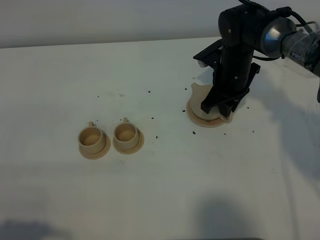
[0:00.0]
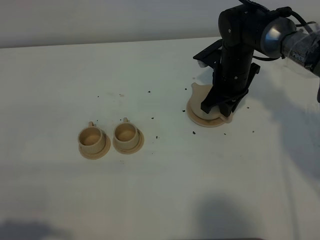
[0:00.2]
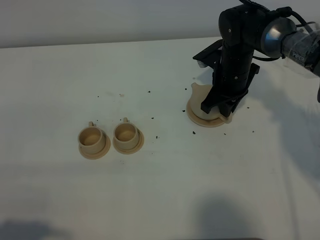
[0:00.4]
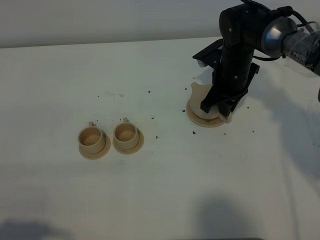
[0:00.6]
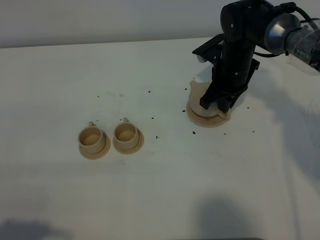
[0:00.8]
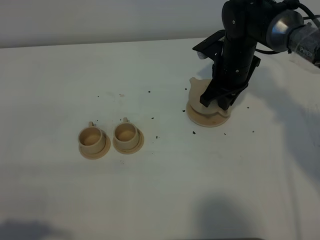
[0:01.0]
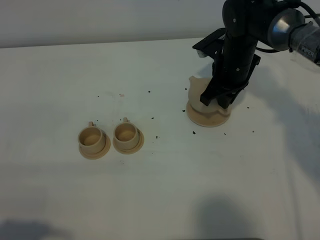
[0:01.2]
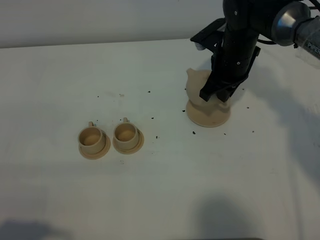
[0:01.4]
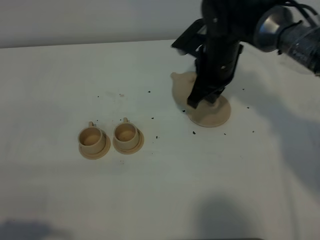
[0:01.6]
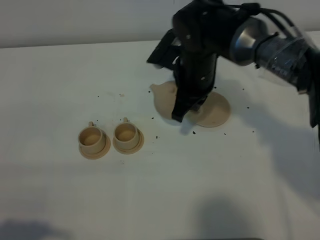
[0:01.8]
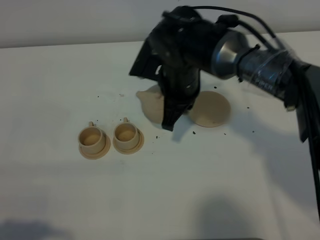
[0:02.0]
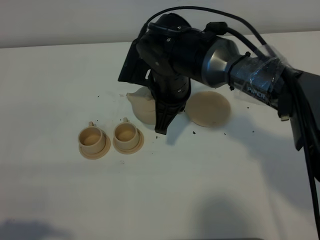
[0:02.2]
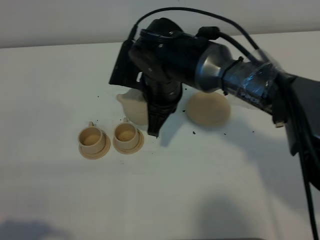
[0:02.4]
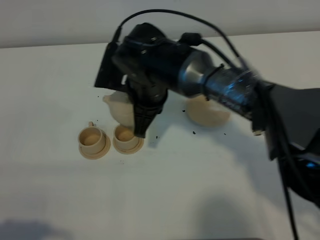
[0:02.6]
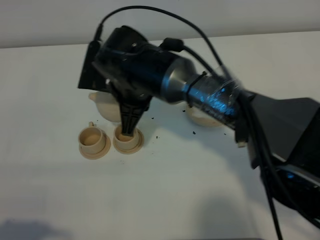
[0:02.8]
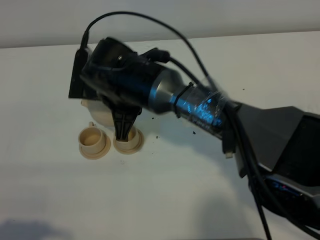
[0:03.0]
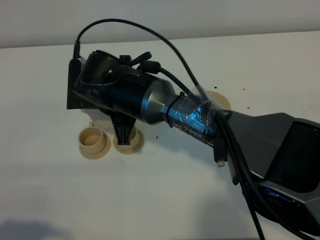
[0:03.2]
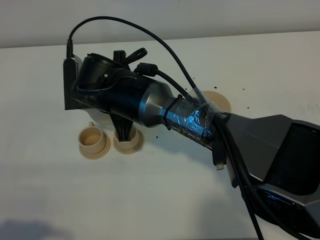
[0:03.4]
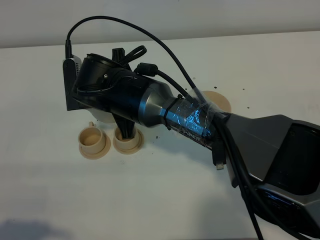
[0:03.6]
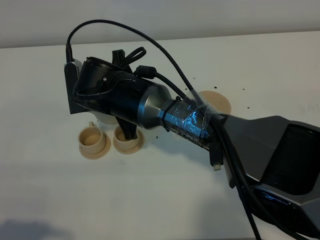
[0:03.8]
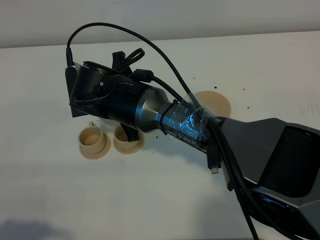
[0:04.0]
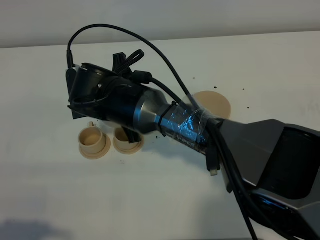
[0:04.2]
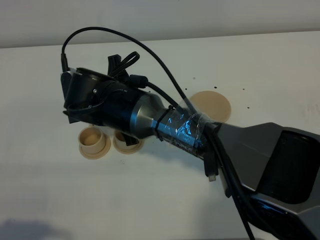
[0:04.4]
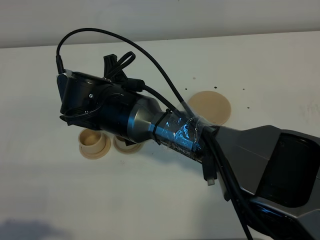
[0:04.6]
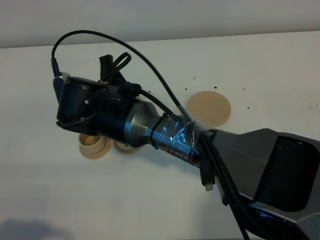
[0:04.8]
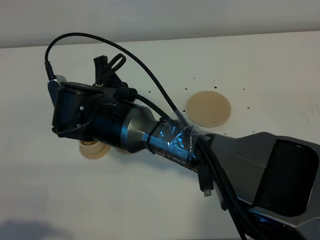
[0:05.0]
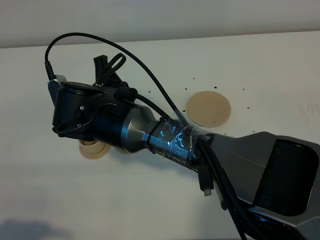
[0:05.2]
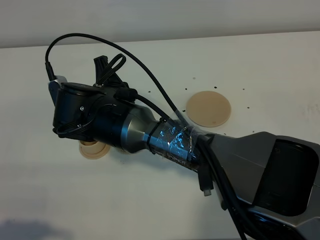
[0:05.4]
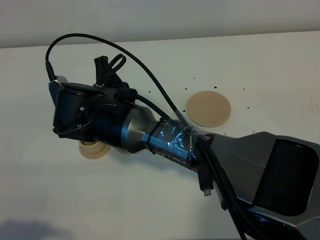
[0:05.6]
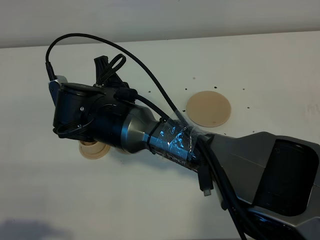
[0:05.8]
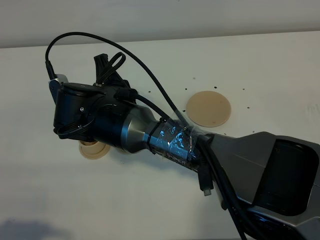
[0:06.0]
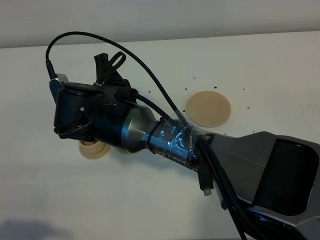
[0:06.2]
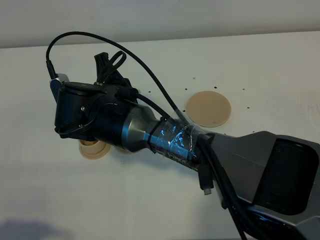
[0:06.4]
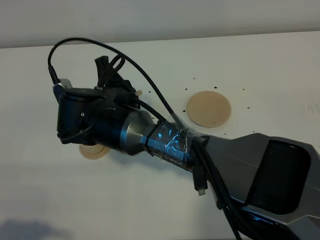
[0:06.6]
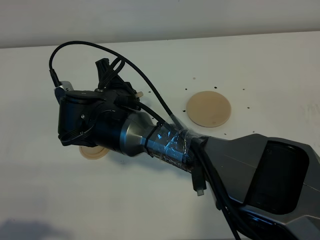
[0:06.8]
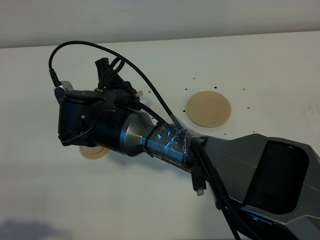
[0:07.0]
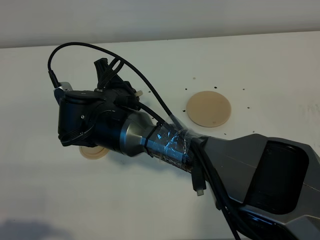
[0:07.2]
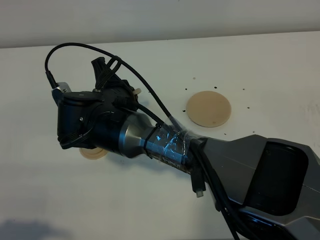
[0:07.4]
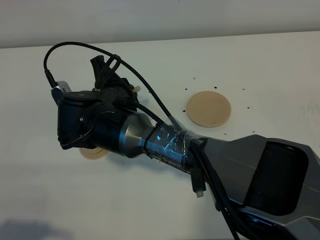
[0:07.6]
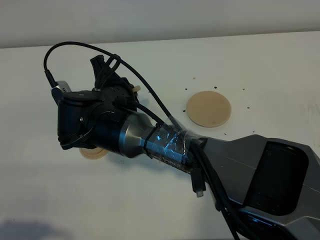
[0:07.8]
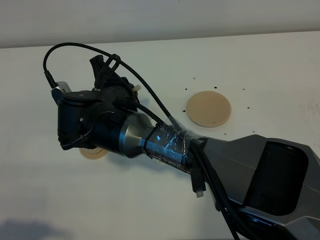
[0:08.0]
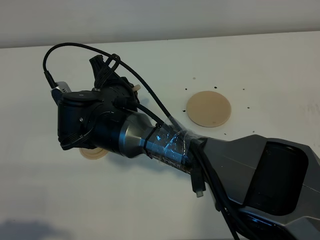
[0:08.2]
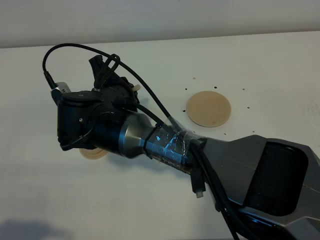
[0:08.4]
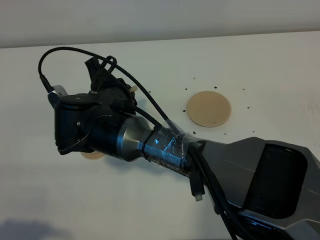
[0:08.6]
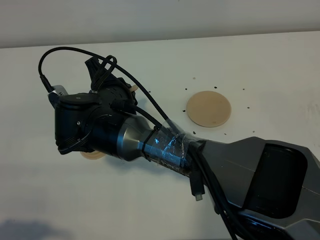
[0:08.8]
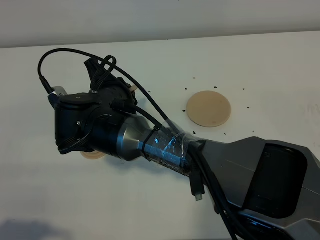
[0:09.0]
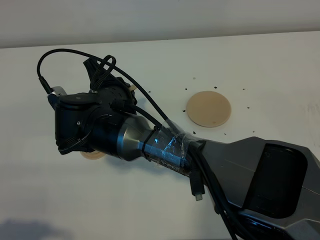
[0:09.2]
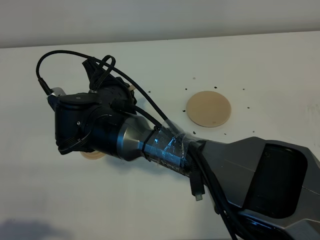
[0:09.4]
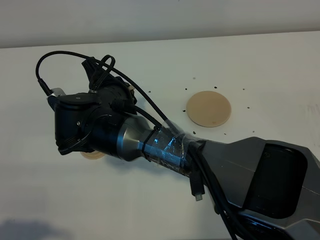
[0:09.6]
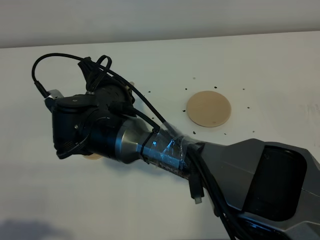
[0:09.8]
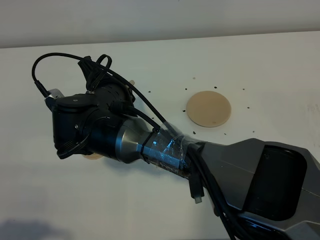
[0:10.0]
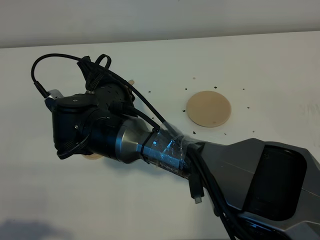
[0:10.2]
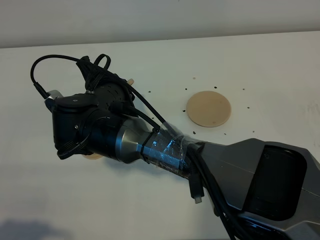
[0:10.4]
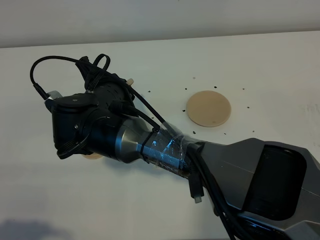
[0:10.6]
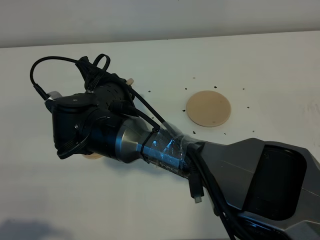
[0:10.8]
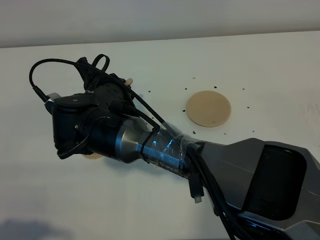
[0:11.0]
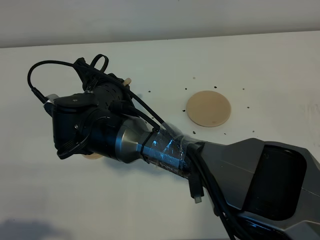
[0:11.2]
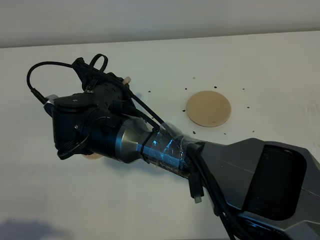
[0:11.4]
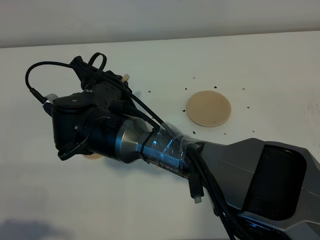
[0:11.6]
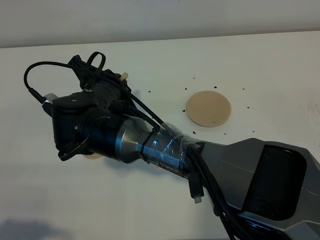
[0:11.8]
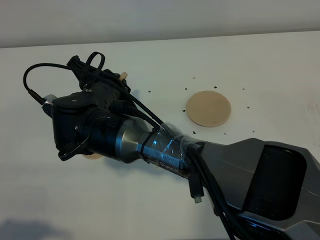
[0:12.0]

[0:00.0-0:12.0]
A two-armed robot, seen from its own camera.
Task of the whole recording: grasp the brown teapot and pour the tea into the two brown teacups one by one, put the brown teapot back in its original place.
0:00.0 to 0:01.6: The right gripper heads upward and to the left, covering some 10 cm.
0:01.6 to 0:03.0: The right gripper heads to the left, covering roughly 15 cm.
0:04.4 to 0:07.6: There are only small adjustments of the grippers.
0:07.6 to 0:10.4: The grippers stay close to where they were, moving slightly.
0:10.4 to 0:12.0: There are only small adjustments of the grippers.

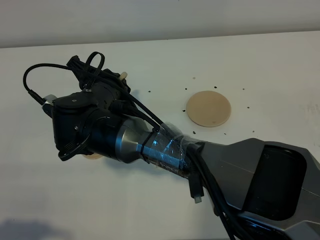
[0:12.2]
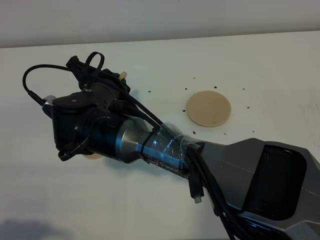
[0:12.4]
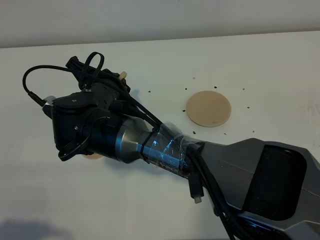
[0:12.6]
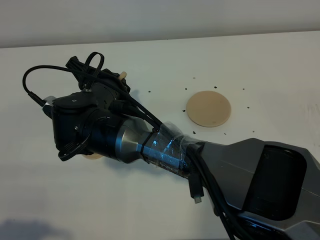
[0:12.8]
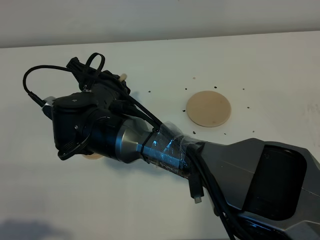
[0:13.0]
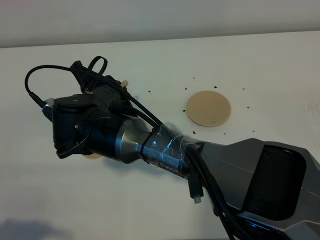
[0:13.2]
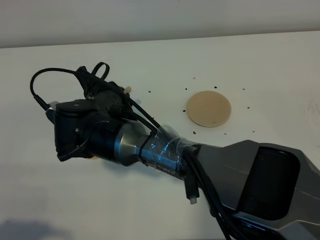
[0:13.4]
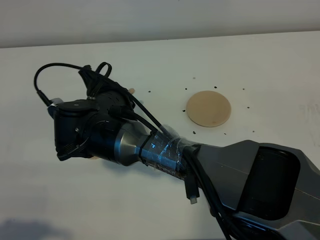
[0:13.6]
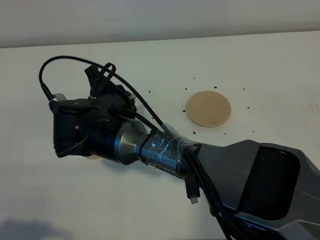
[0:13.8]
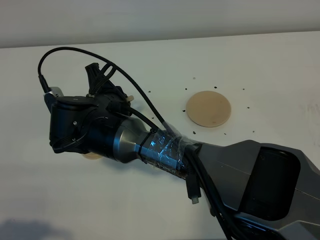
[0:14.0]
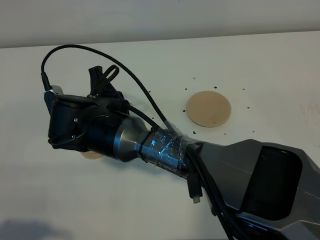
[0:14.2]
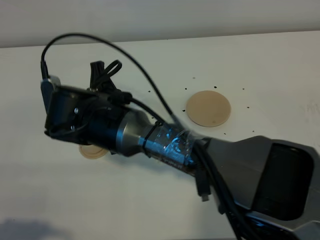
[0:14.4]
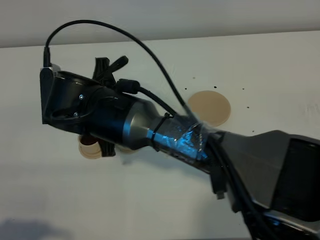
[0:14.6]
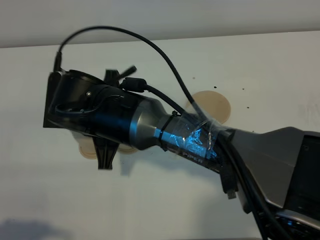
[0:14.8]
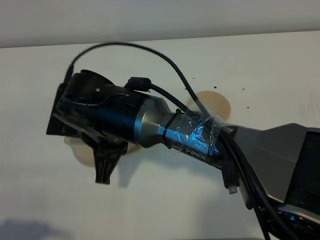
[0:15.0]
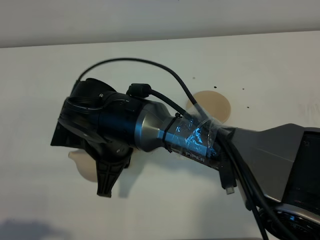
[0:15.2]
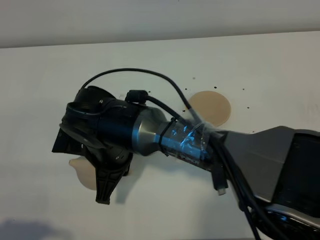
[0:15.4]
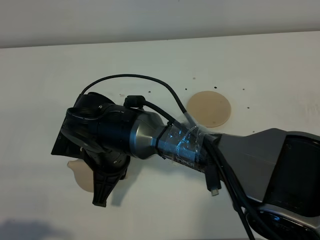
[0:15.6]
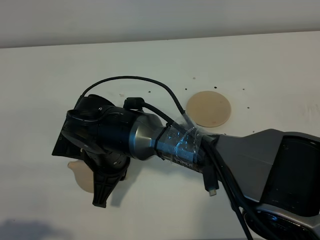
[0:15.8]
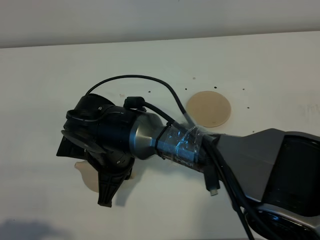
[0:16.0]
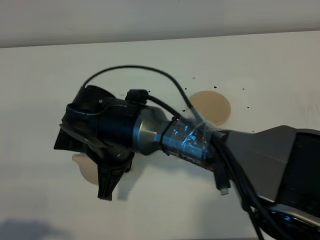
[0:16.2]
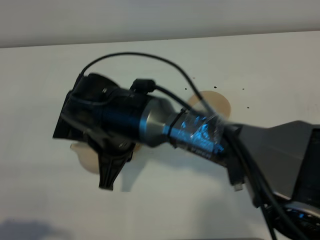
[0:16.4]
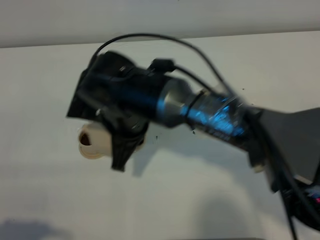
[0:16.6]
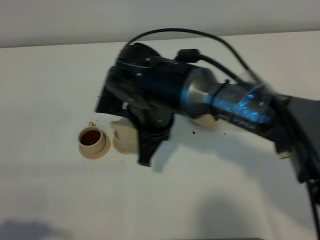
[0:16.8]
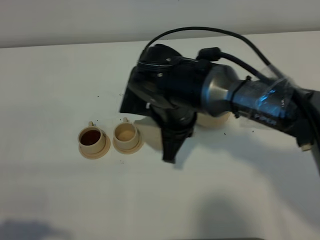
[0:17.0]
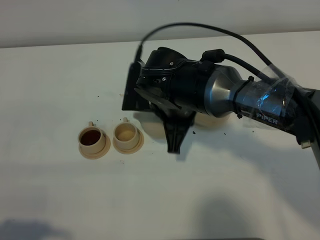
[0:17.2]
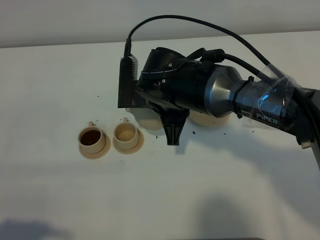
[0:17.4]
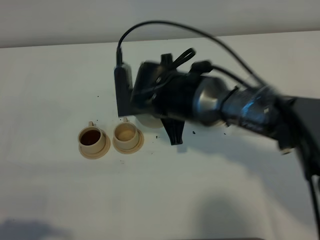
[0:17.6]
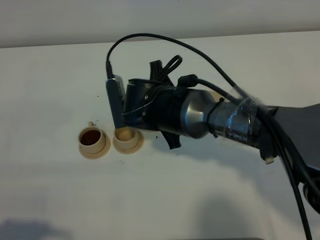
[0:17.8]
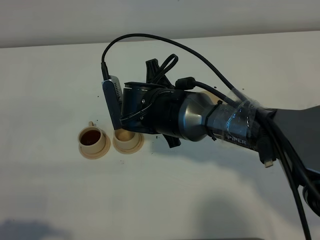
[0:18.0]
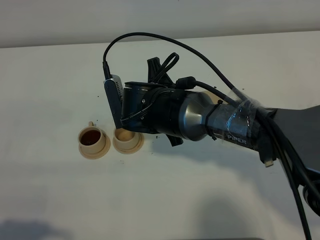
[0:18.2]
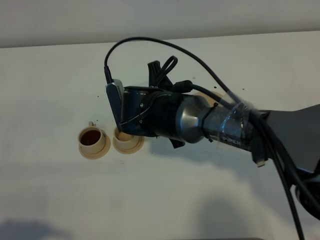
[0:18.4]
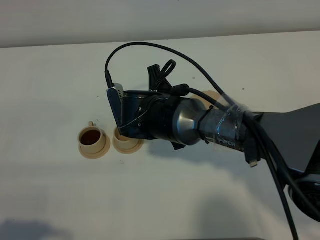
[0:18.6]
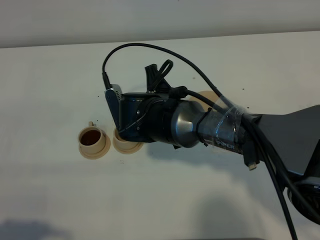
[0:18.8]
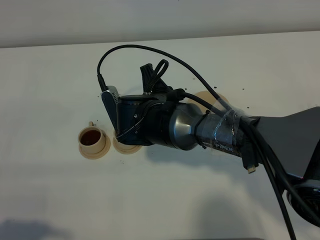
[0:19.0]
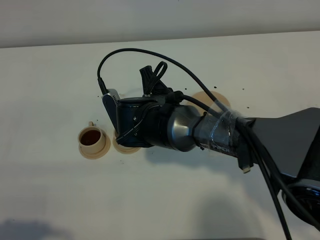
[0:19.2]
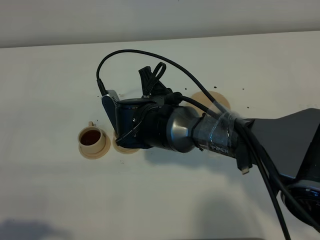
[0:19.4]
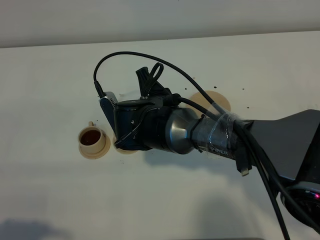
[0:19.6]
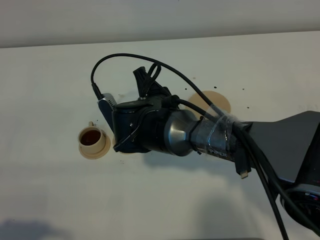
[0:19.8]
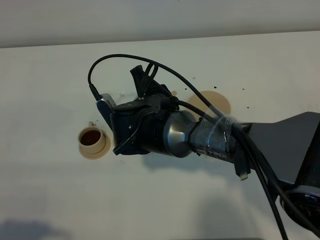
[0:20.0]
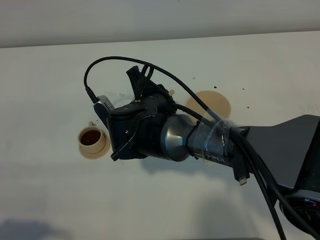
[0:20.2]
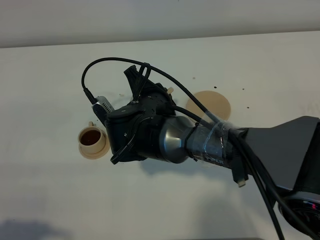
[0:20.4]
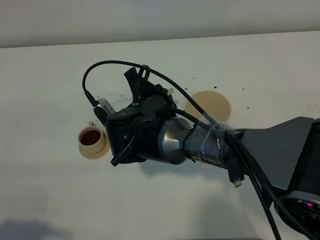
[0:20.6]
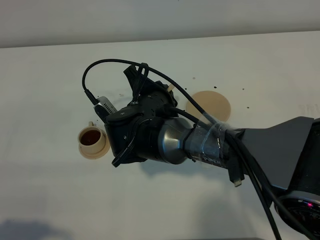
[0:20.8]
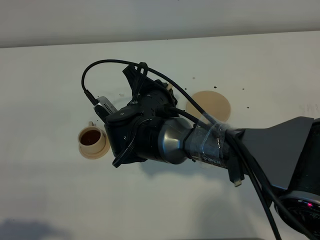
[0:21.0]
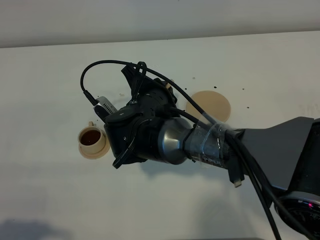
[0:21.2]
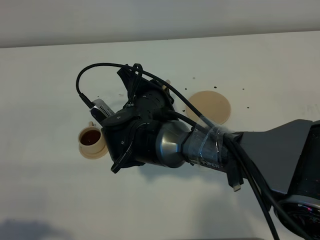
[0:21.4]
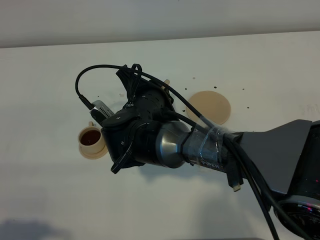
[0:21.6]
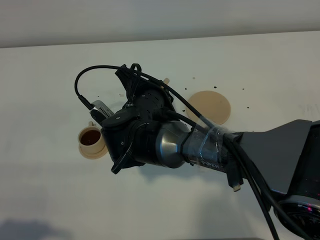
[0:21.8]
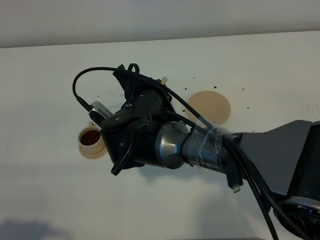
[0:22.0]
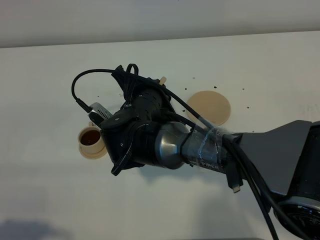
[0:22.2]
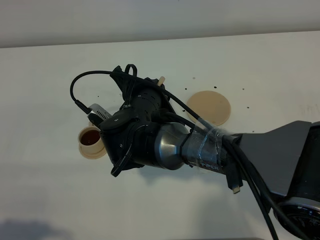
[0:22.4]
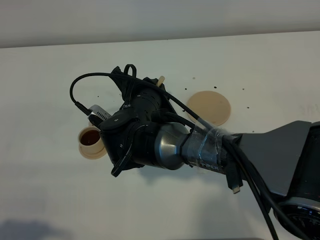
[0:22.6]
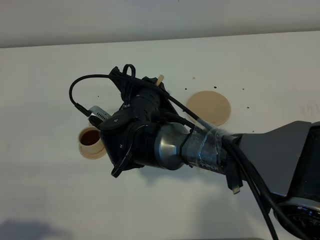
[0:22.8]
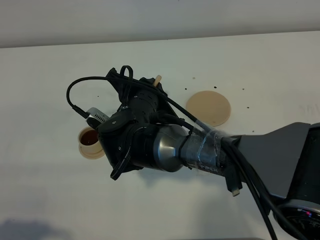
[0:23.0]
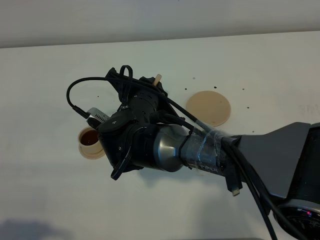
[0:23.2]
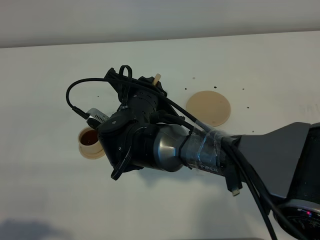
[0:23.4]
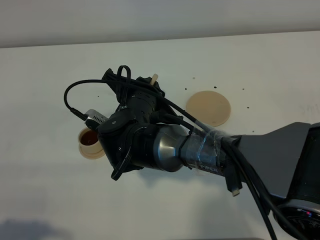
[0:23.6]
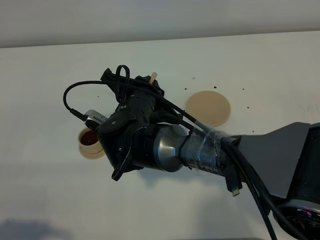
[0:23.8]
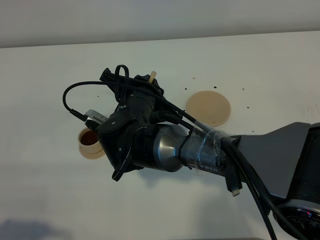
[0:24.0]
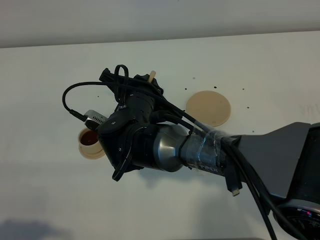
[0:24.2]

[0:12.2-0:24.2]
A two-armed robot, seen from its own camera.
Task of the whole recording: grasp the brown teapot and pour the tea into the two brown teacups one by one, put the brown teapot back in its original place.
0:12.2 to 0:13.8: The grippers make only small movements.
0:13.8 to 0:15.2: The right gripper travels backward by roughly 5 cm.
0:15.2 to 0:16.6: The right gripper changes place by approximately 5 cm.
0:16.6 to 0:18.2: The right gripper shifts by about 5 cm.
0:19.8 to 0:21.2: The grippers move only a little.
0:21.2 to 0:24.2: The grippers make only small movements.
